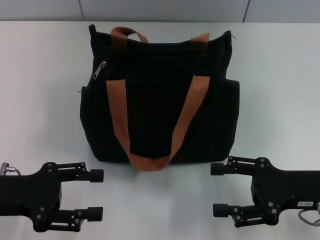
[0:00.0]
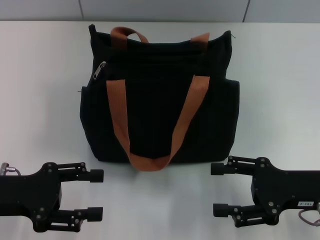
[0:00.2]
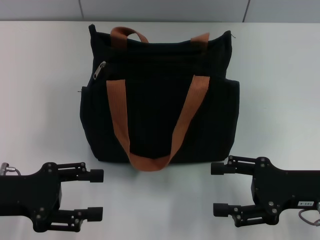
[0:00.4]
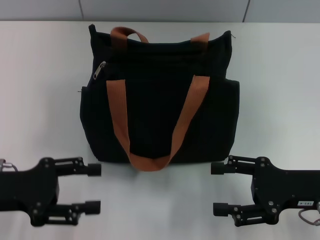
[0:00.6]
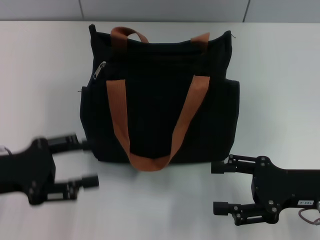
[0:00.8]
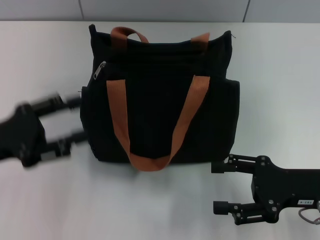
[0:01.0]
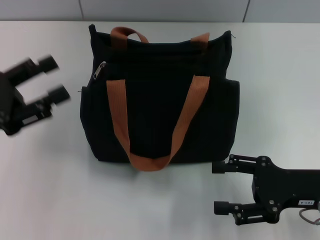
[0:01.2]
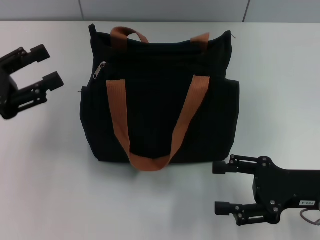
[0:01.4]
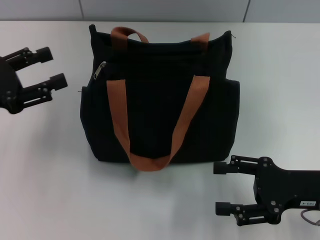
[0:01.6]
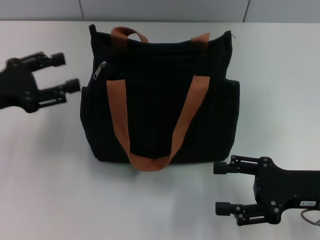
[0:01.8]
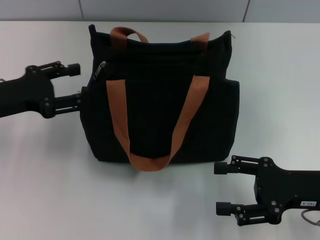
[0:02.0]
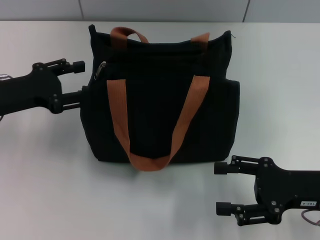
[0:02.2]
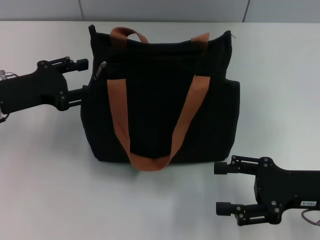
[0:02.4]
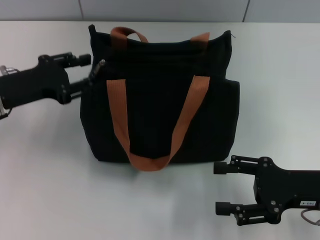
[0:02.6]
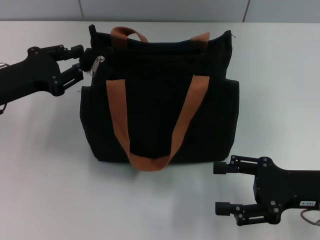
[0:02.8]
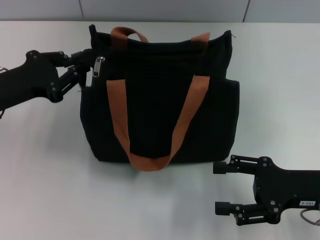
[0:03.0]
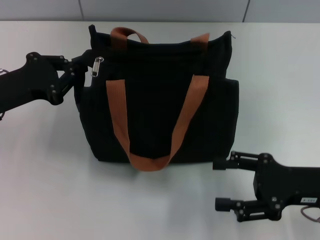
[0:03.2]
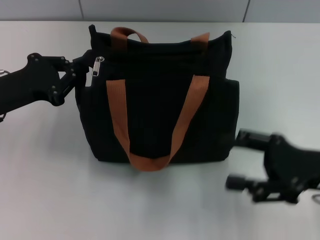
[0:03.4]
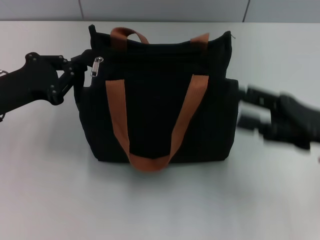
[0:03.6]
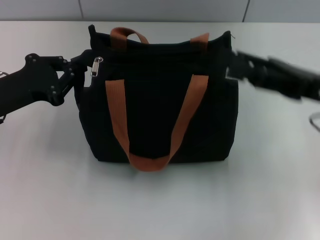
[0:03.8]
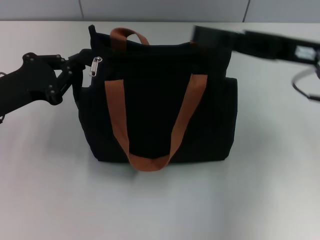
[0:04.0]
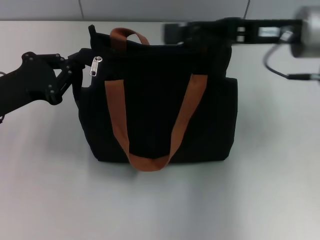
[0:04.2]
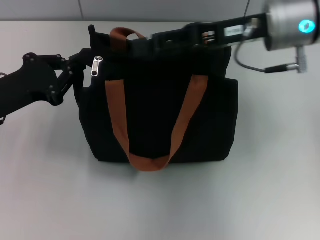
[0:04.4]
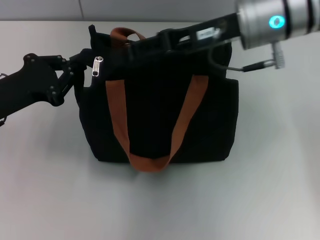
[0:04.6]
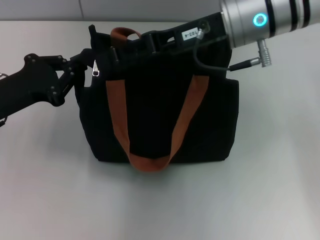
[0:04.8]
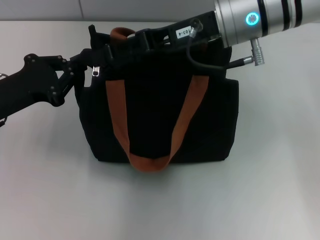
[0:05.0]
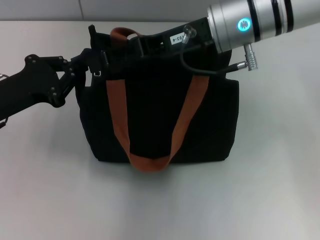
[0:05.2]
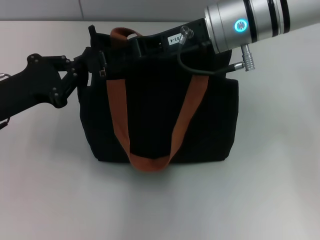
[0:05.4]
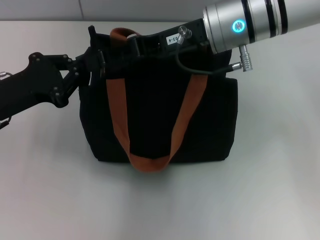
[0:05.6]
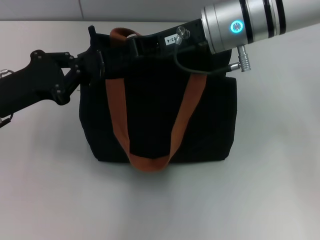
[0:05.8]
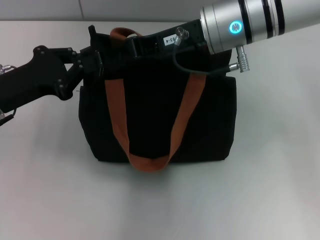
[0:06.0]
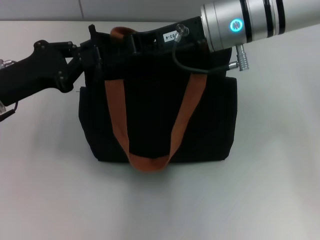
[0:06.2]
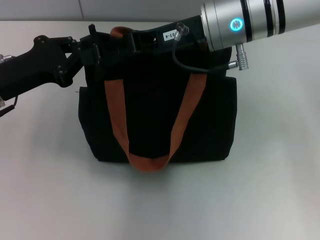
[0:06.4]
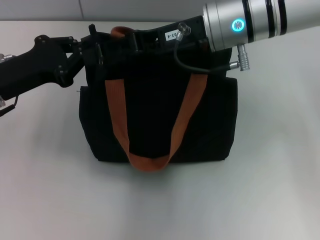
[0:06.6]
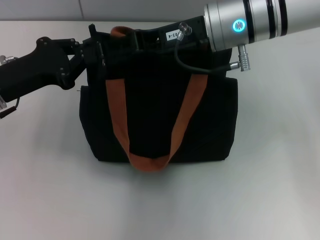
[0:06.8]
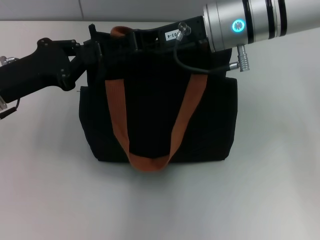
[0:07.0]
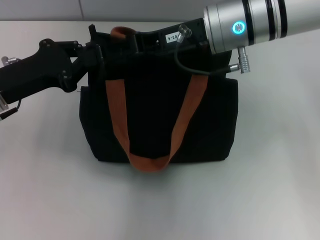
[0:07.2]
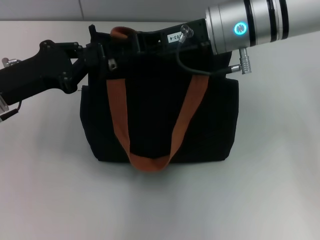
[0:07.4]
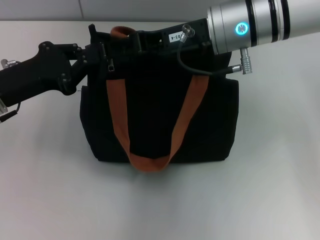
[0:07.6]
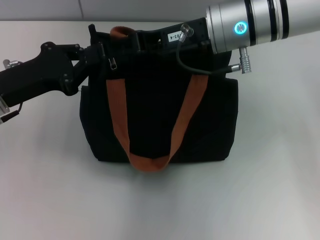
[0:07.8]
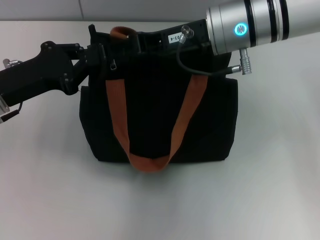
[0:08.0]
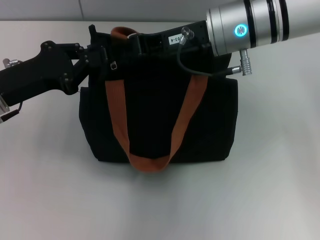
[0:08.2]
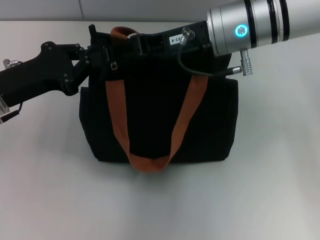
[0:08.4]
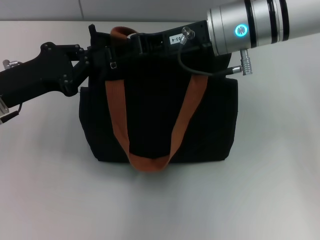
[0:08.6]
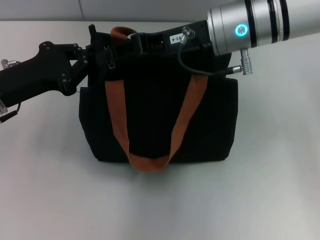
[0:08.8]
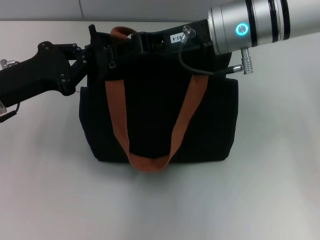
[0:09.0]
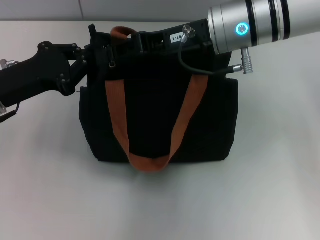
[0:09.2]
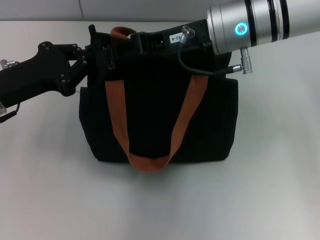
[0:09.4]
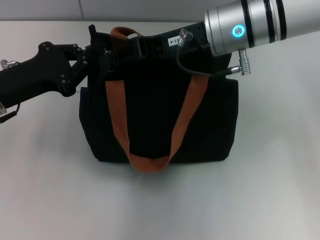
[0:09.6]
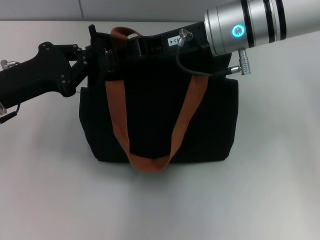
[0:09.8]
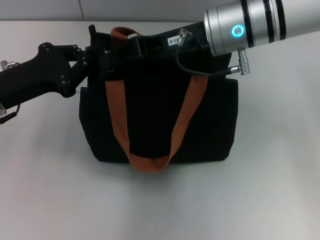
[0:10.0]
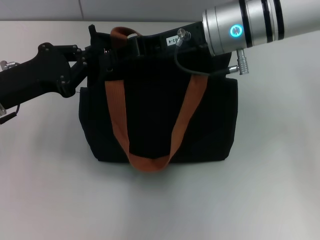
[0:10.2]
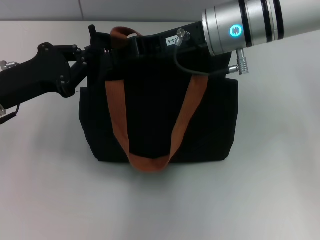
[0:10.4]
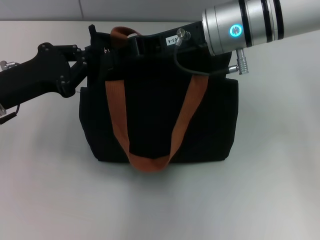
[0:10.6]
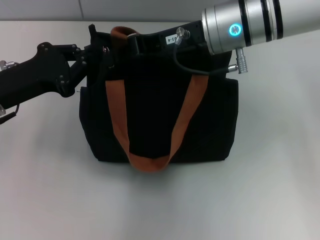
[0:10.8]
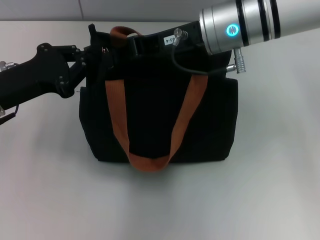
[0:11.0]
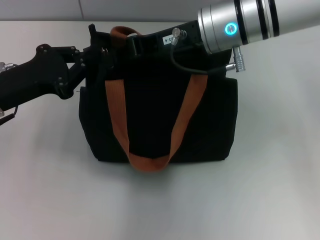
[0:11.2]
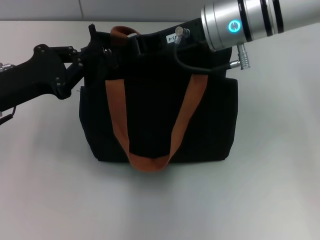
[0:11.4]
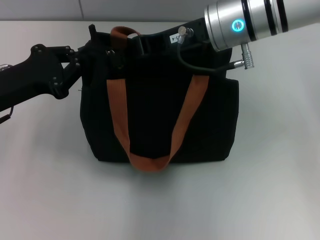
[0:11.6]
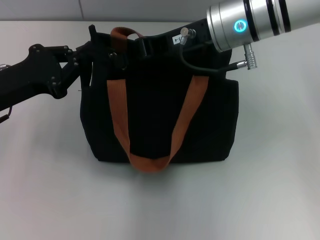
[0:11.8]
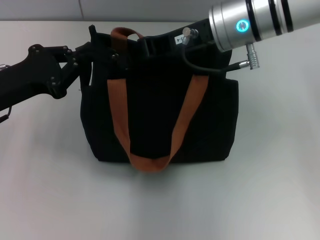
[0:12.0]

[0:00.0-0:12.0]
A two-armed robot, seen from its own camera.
0:00.0 to 0:01.6: The left gripper is displaced forward by some 5 cm.
0:01.6 to 0:03.0: The left gripper changes place by approximately 5 cm, and closes up.
0:03.0 to 0:04.4: The left gripper closes; the right gripper heads forward, upward and to the left, covering some 25 cm.
0:04.4 to 0:06.0: The right gripper shifts approximately 5 cm to the left.
0:06.0 to 0:07.6: The grippers make only small movements.
0:07.6 to 0:09.0: The right gripper closes its fingers.
0:09.0 to 0:10.4: Both grippers stay put.
0:10.4 to 0:12.0: The grippers move only a little.

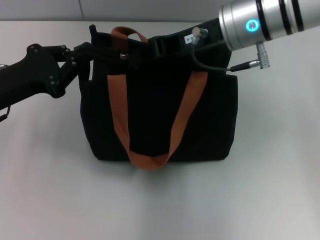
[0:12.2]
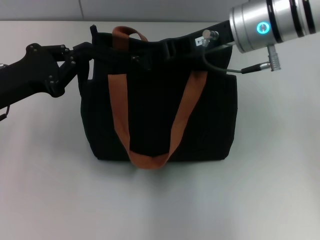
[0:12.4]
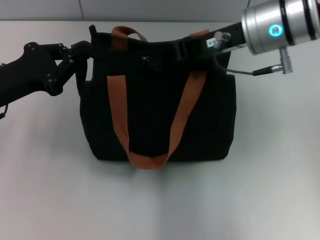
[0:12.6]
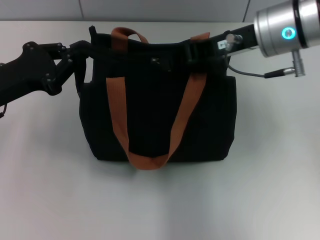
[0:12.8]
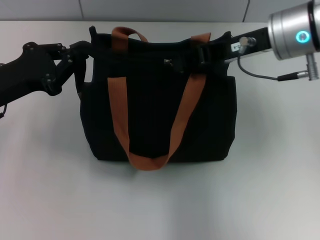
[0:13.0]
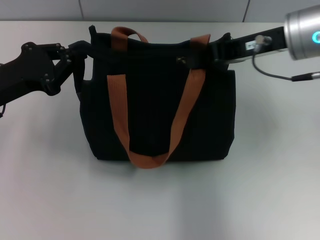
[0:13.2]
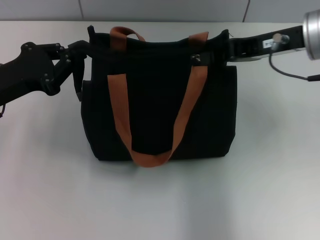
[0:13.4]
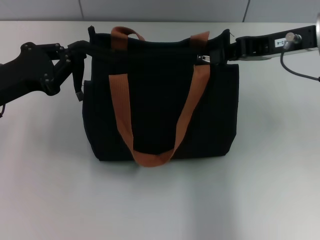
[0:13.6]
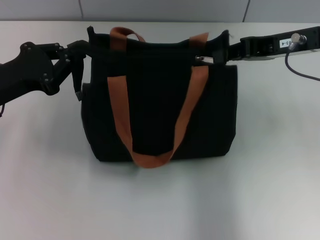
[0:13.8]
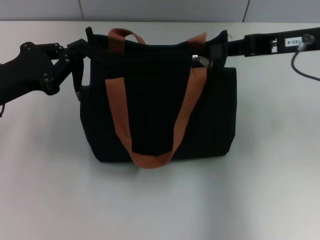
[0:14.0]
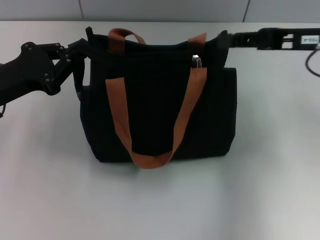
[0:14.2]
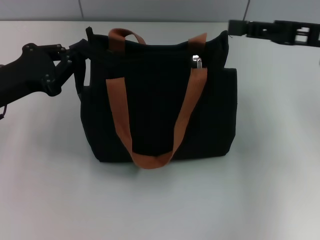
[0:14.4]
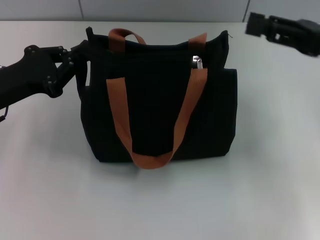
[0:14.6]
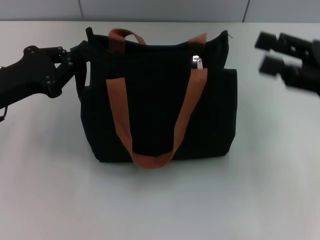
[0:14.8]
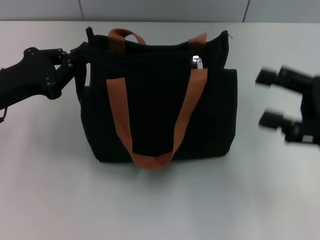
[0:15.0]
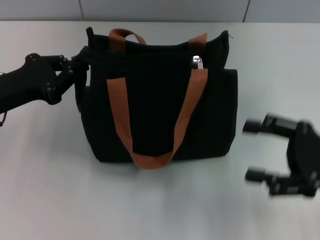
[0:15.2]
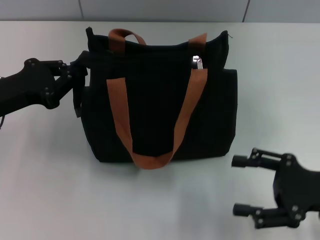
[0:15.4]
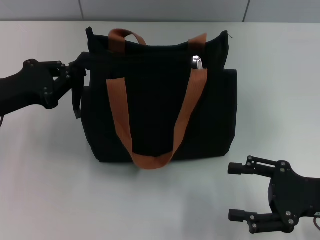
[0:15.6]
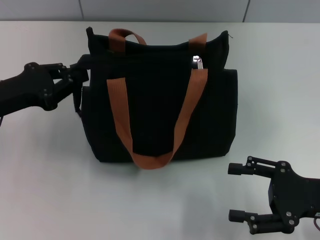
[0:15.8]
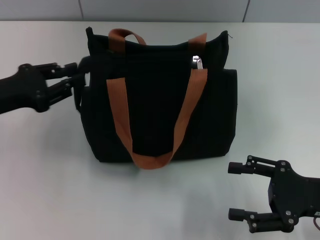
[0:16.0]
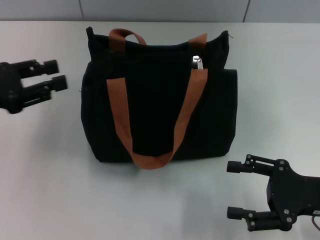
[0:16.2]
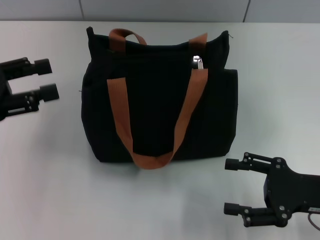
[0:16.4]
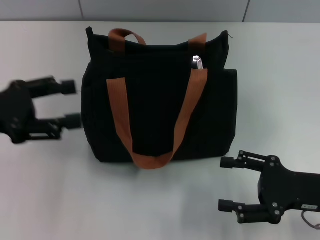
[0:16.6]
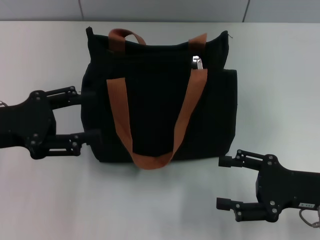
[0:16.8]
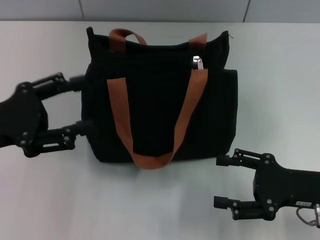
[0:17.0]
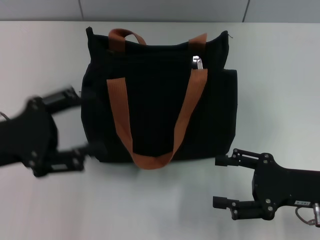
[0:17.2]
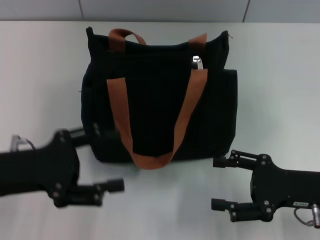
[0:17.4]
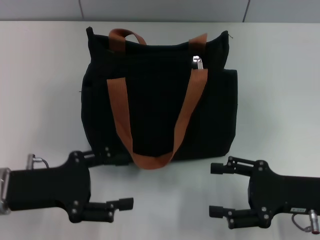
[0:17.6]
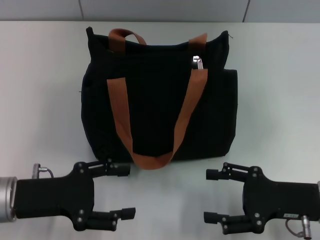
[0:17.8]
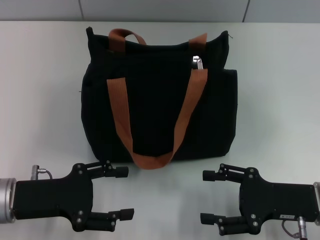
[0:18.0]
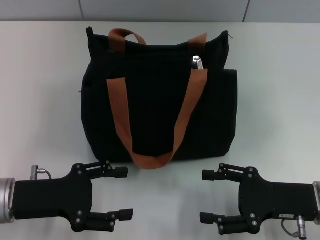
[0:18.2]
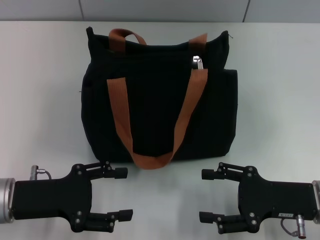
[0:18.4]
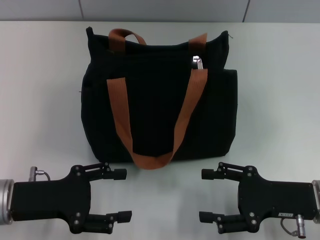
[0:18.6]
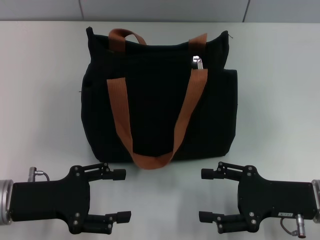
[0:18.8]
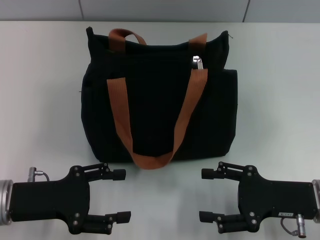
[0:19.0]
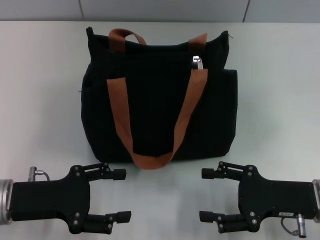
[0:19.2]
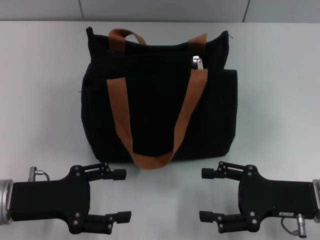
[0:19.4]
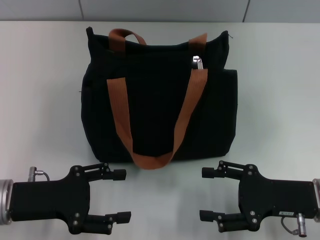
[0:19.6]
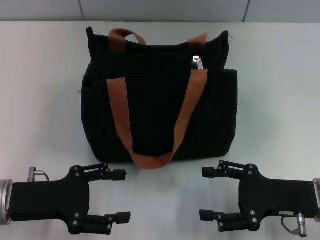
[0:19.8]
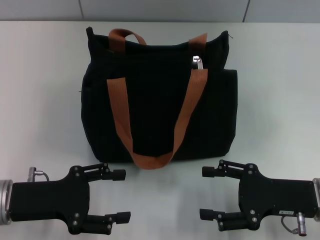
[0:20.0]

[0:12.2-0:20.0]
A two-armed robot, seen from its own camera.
0:12.2 to 0:13.8: The right gripper heads to the right, covering roughly 10 cm.
0:13.8 to 0:15.4: The right gripper goes some 20 cm downward, backward and to the right, and opens its fingers.
0:15.4 to 0:16.8: The left gripper opens.
0:16.8 to 0:18.4: The left gripper moves downward, some 10 cm.
0:18.4 to 0:20.0: Both grippers stay about where they are.

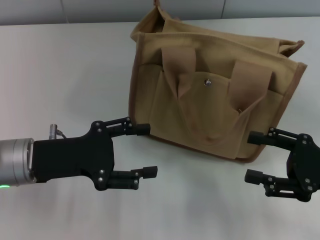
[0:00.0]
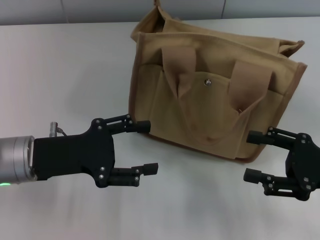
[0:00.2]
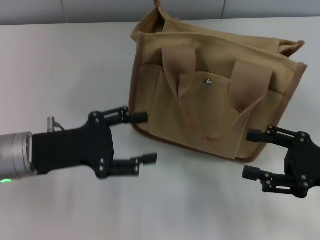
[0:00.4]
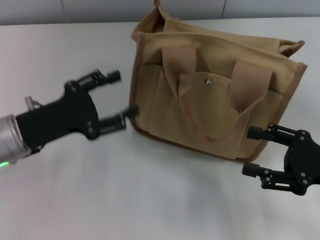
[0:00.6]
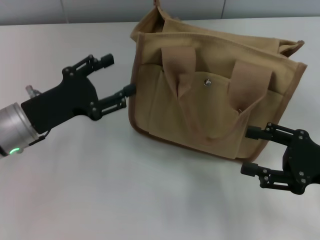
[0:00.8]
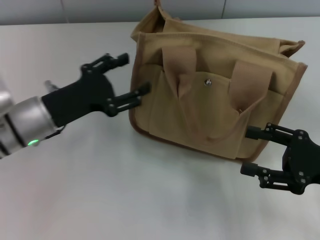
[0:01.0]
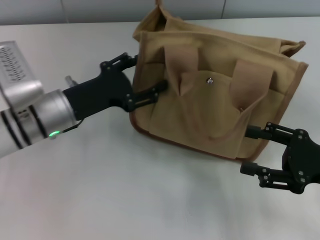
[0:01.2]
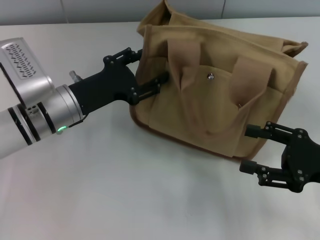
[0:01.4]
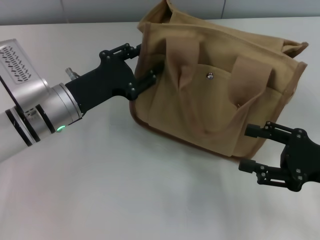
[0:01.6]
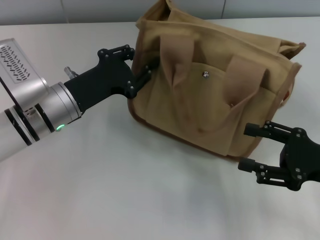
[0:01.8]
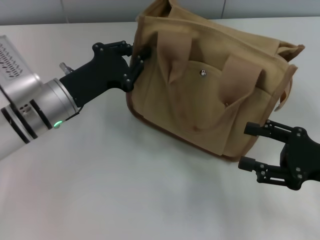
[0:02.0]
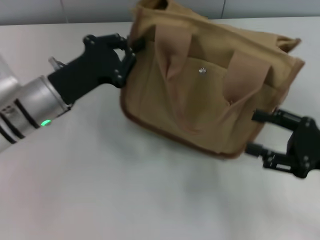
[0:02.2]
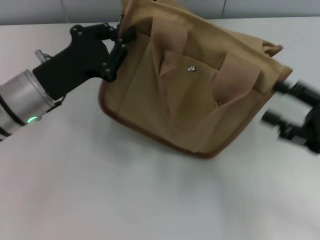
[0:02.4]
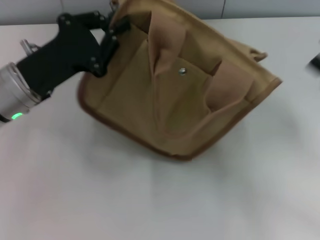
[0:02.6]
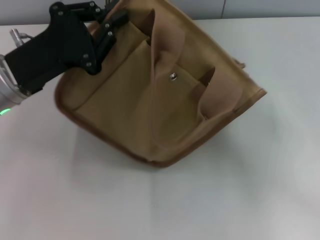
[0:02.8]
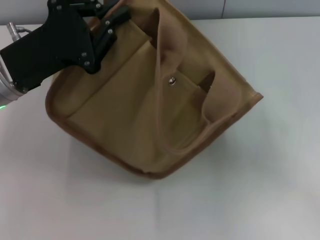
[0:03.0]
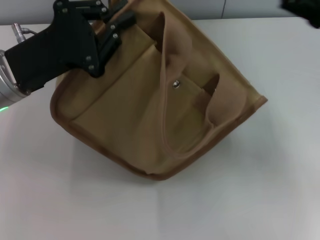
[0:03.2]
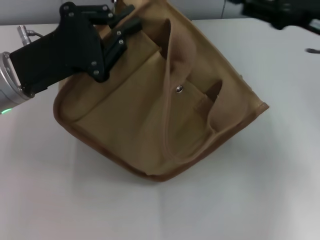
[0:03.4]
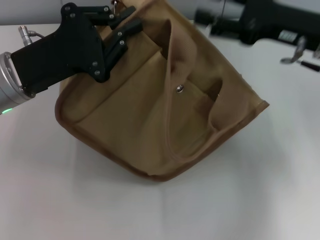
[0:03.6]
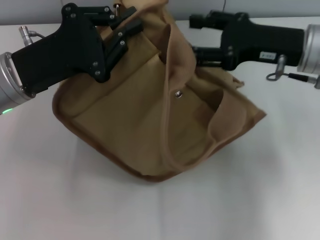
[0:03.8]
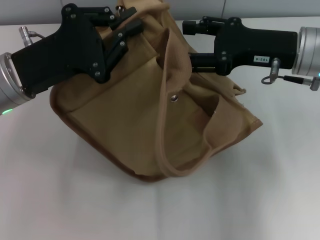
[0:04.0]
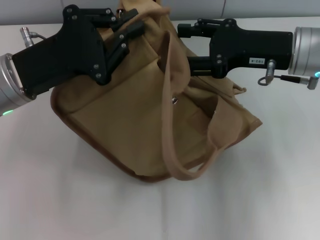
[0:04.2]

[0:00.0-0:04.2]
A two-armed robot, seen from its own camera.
0:00.0 to 0:01.4: The left gripper shifts approximately 5 cm forward.
0:01.4 to 0:02.8: Both grippers move upward, some 5 cm. The left gripper closes.
0:02.8 to 0:04.2: The right gripper shifts approximately 15 cm to the left and forward.
